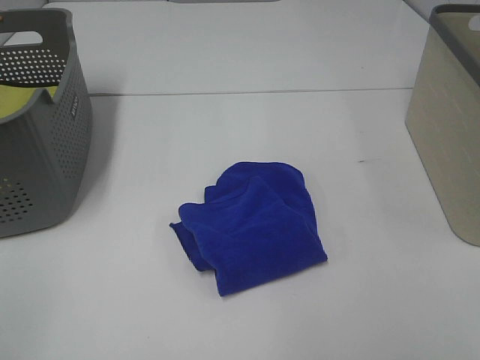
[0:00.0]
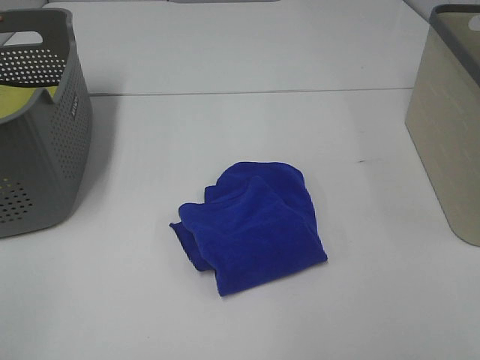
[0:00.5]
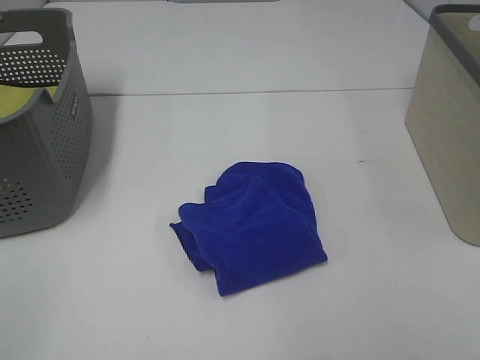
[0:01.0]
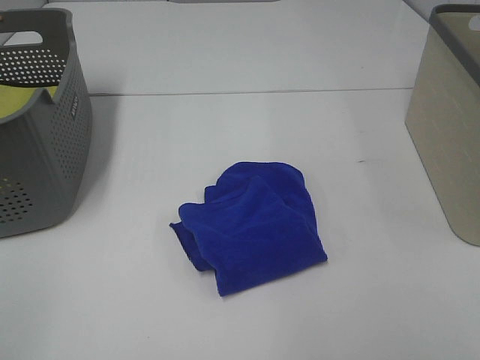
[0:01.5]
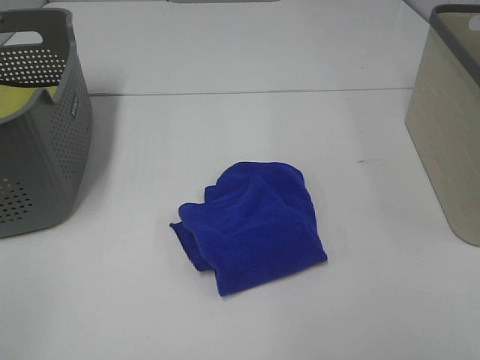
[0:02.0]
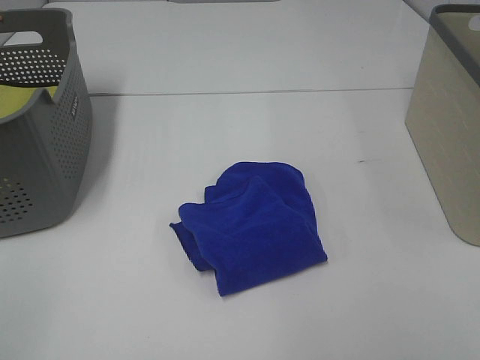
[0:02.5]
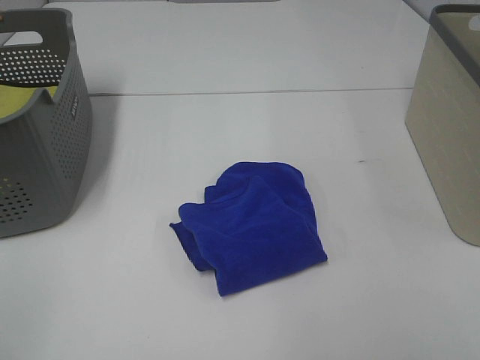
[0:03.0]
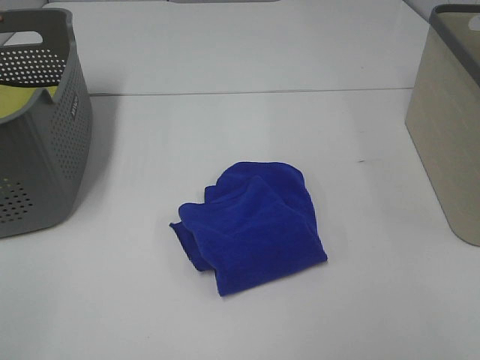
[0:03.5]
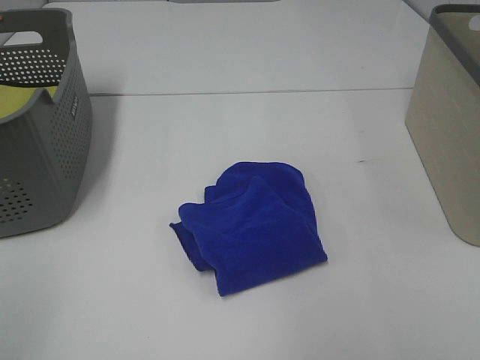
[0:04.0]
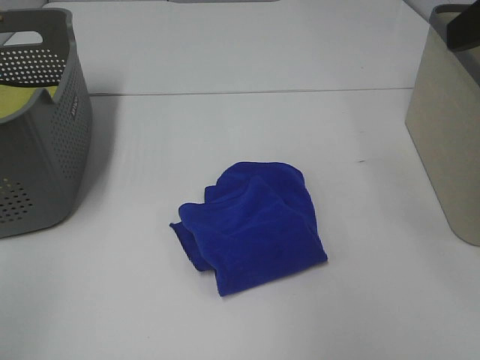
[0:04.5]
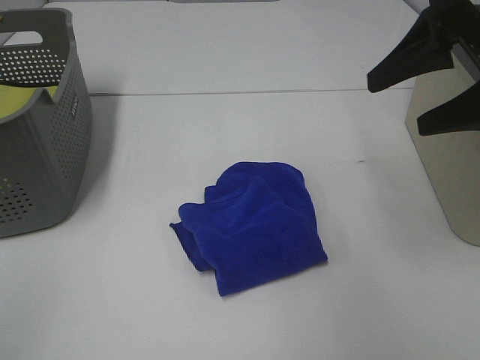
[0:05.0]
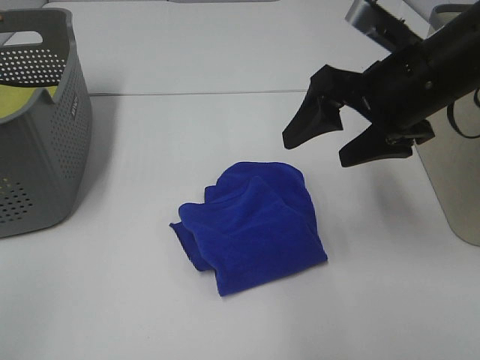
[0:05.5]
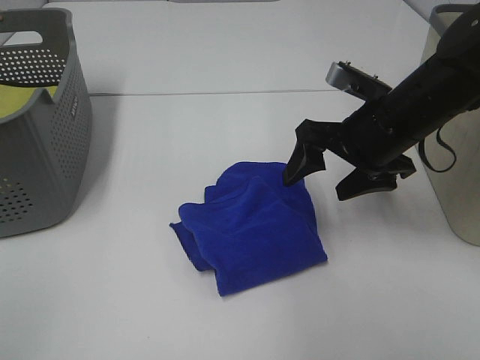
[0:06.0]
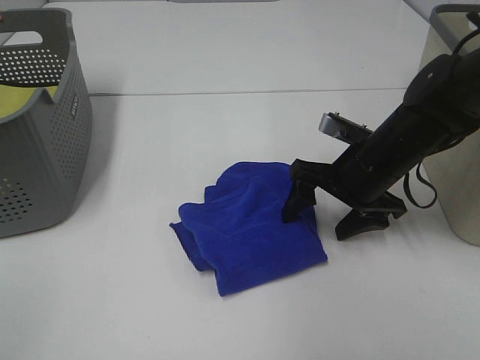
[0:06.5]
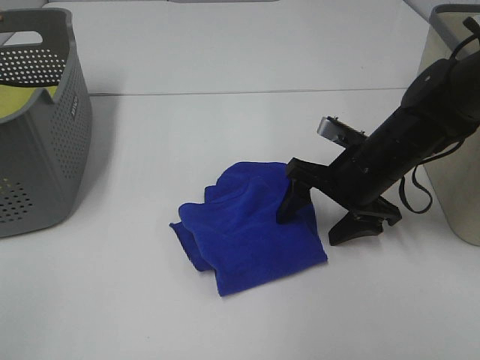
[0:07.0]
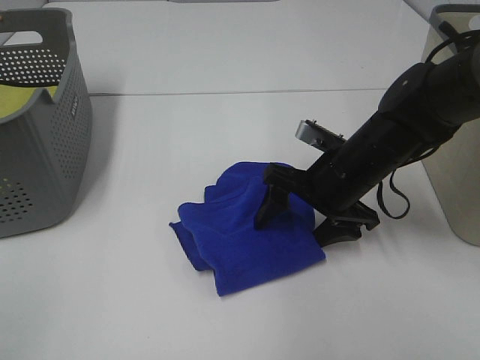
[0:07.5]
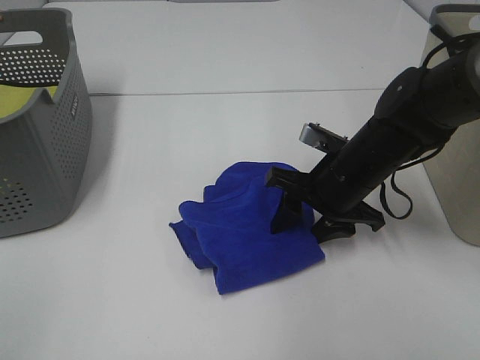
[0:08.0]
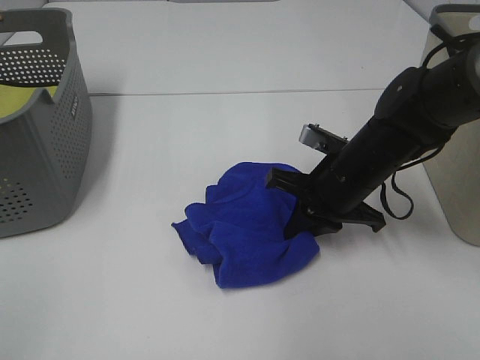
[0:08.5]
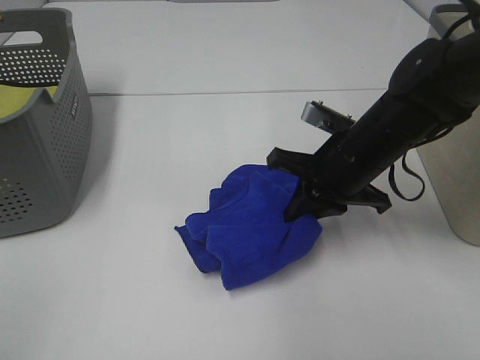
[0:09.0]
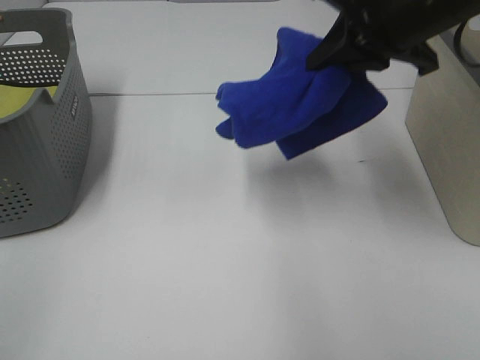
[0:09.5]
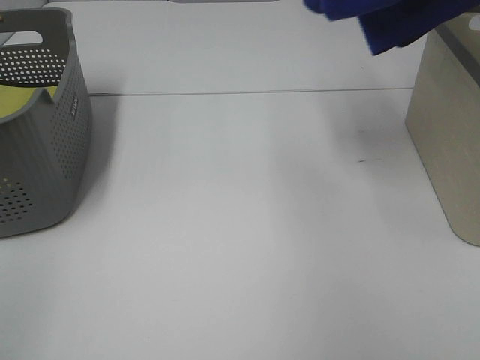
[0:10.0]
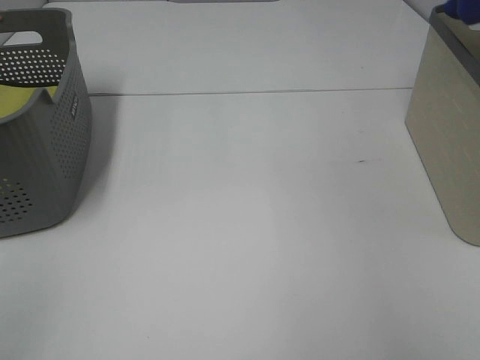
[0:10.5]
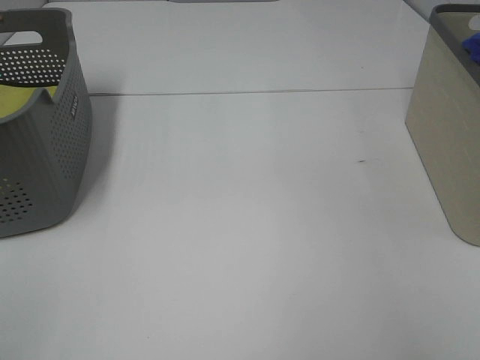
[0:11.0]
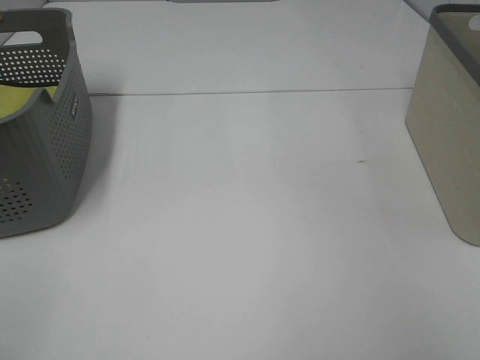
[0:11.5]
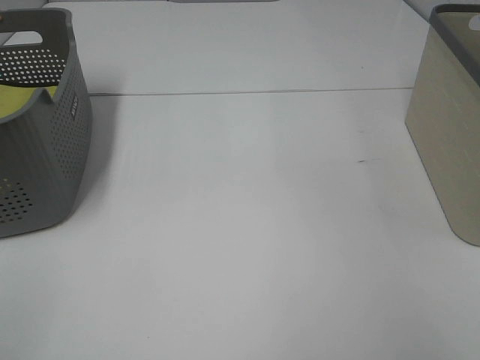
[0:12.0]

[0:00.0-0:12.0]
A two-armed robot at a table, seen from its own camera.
Step, 0:00.0 to 0:08.5: Right hand: grab the folded blue towel.
0:00.0 to 0:02.0: The two grippers keep their place.
0:04.0 to 0:06.0: The right gripper travels forward, downward and to the left by some 35 cm.
0:06.0 to 0:08.0: The right gripper shifts some 5 cm downward, and closes.
0:08.0 to 0:10.0: The right gripper moves upward and to the right, approximately 35 cm, and closes up.
0:10.0 to 0:12.0: The right gripper travels downward and to the right by some 20 cm.

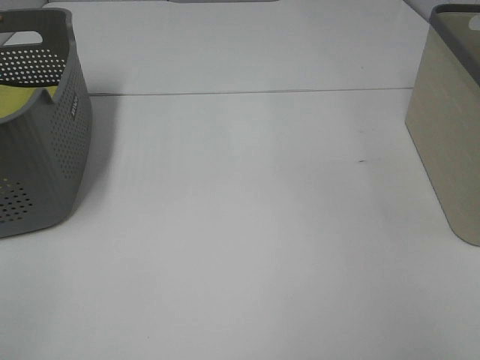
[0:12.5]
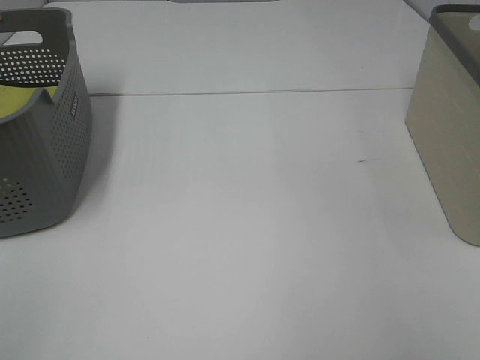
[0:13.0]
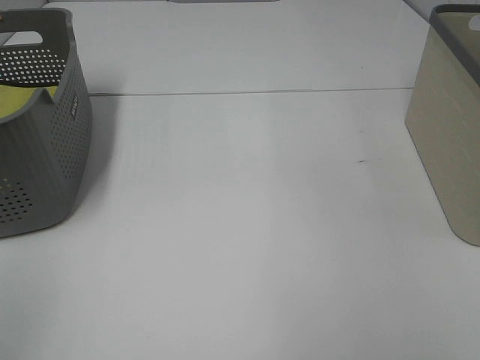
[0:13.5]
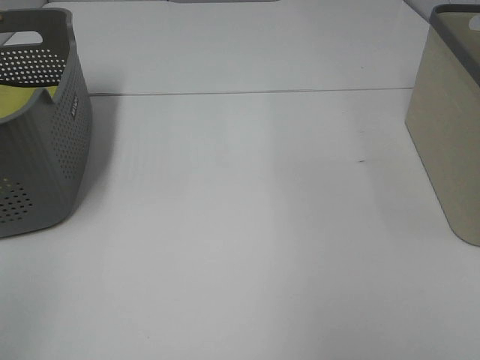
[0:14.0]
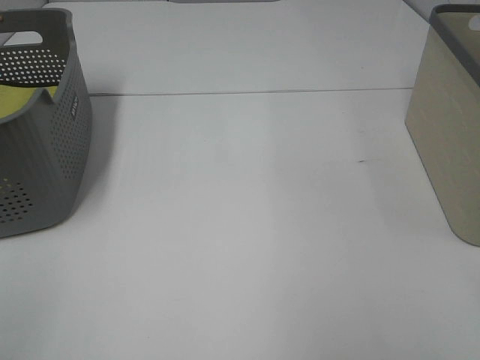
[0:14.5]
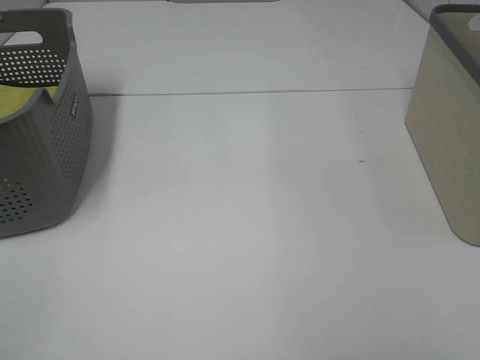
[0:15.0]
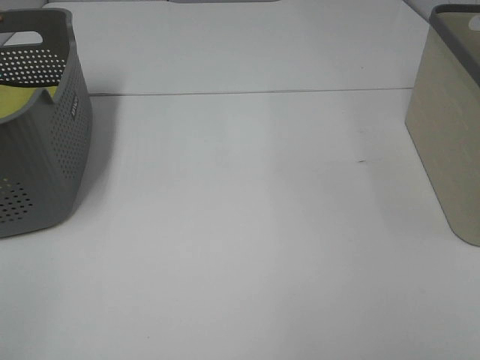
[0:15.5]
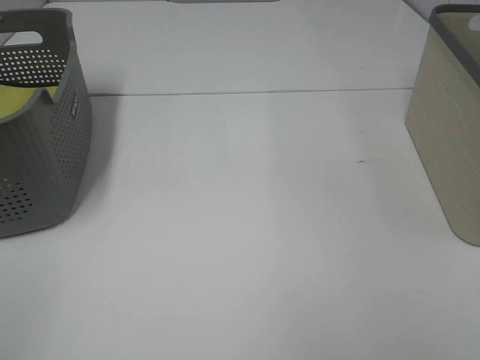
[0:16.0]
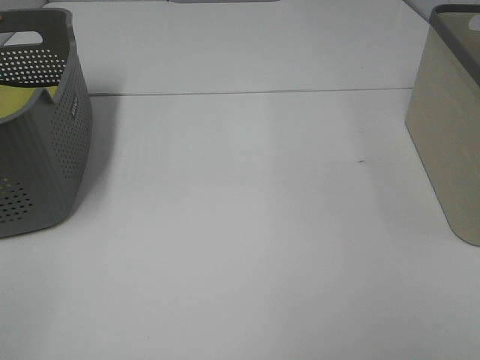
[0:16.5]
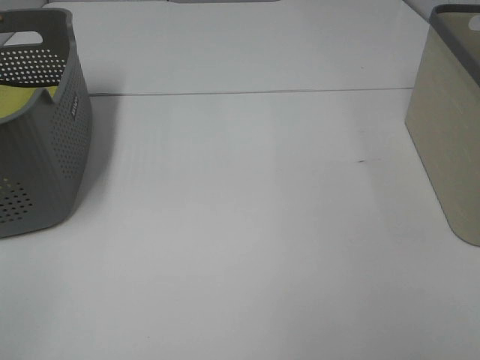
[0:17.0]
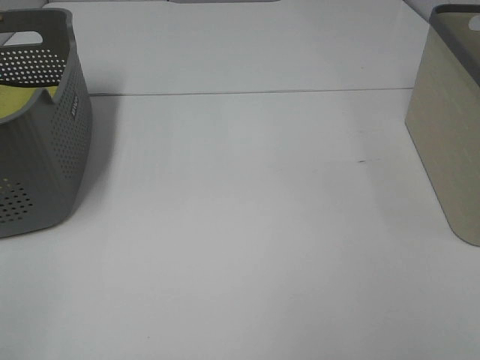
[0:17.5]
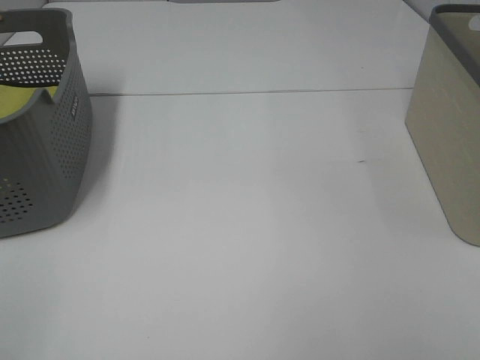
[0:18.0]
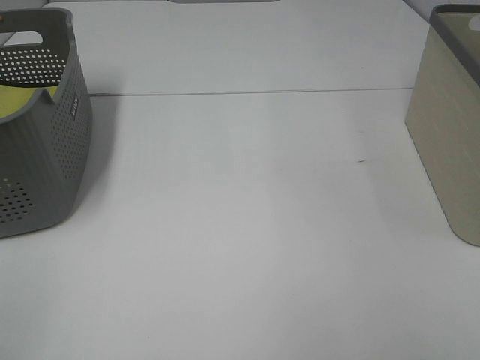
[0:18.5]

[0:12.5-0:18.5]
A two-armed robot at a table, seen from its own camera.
0:16.5 to 0:18.5: Neither gripper changes place.

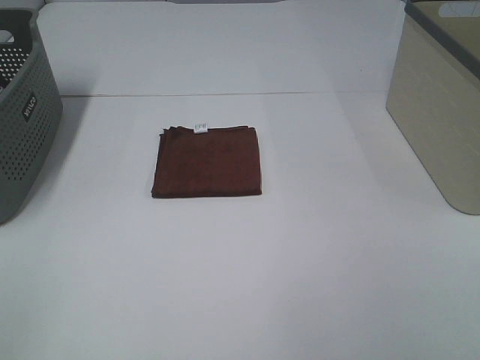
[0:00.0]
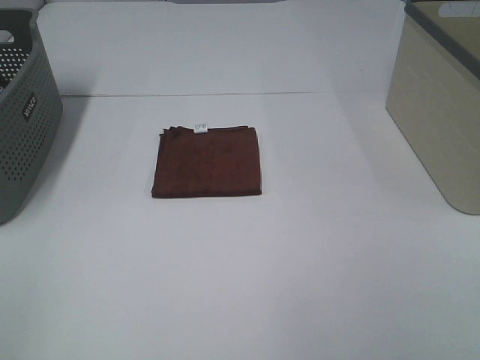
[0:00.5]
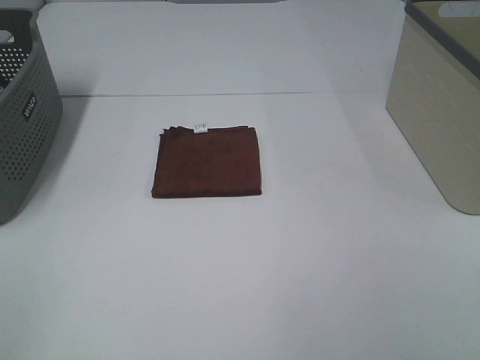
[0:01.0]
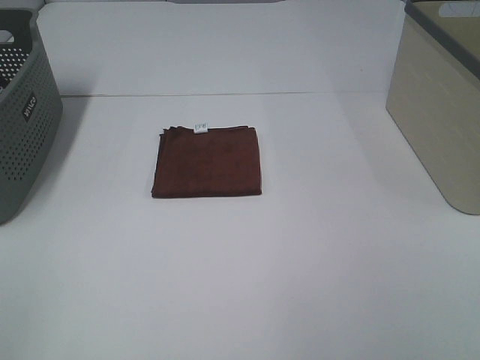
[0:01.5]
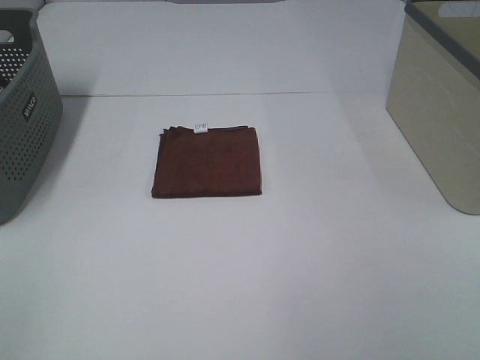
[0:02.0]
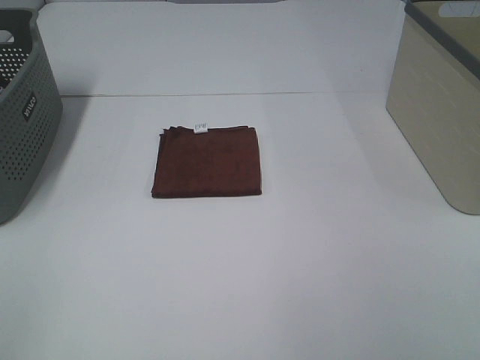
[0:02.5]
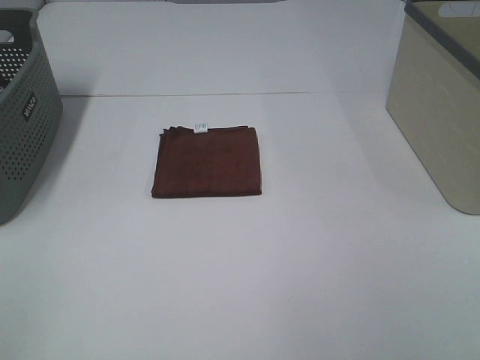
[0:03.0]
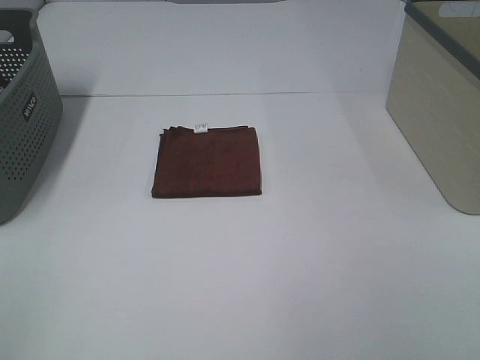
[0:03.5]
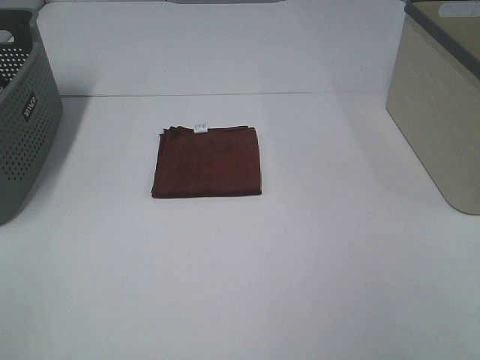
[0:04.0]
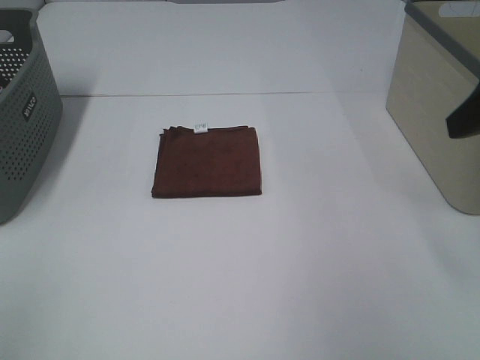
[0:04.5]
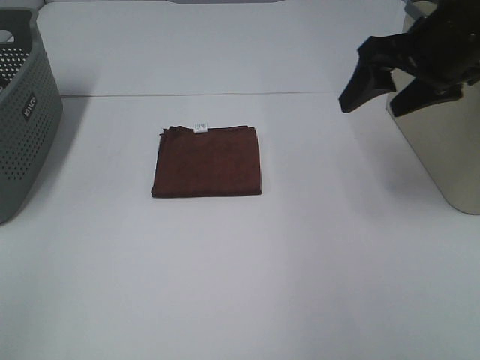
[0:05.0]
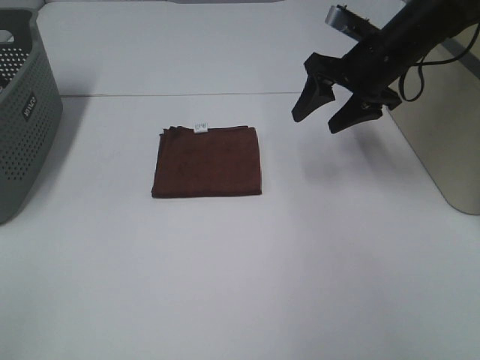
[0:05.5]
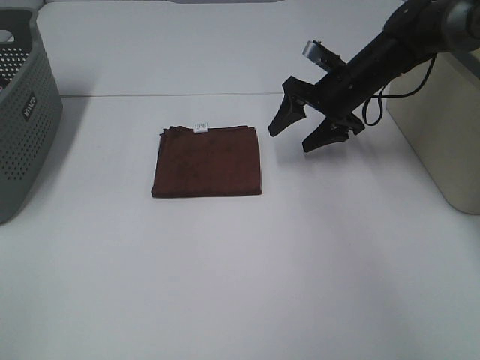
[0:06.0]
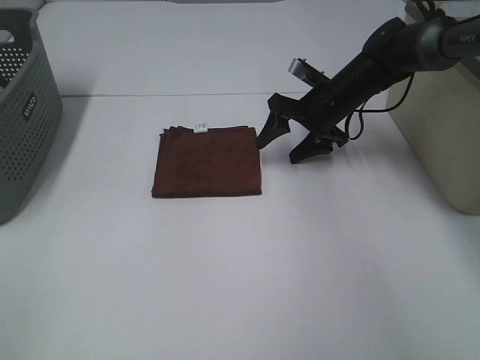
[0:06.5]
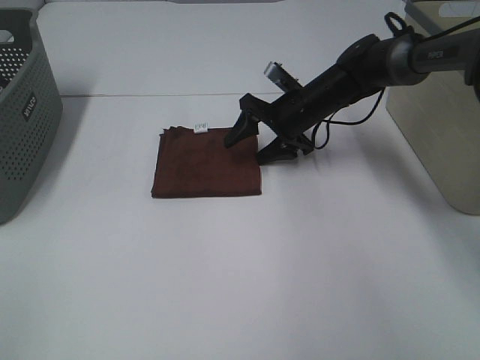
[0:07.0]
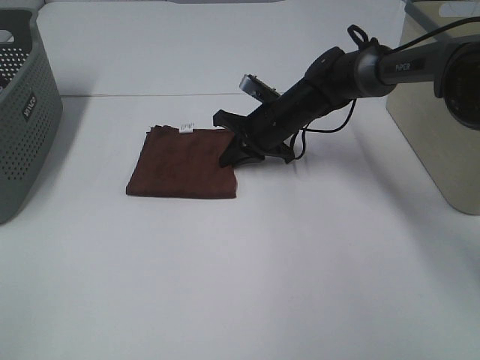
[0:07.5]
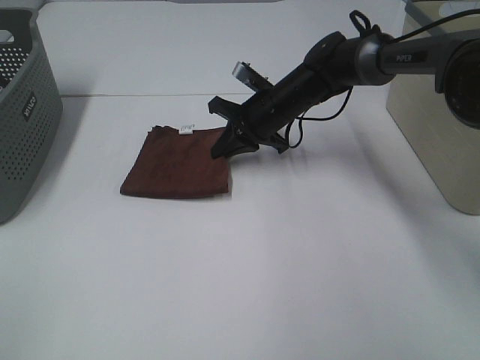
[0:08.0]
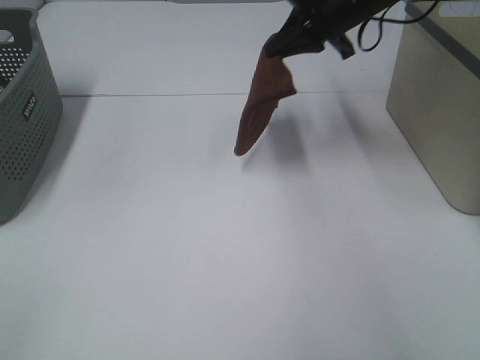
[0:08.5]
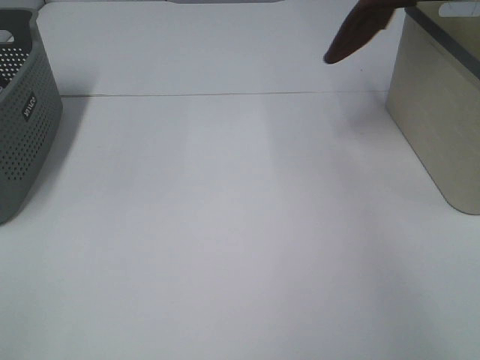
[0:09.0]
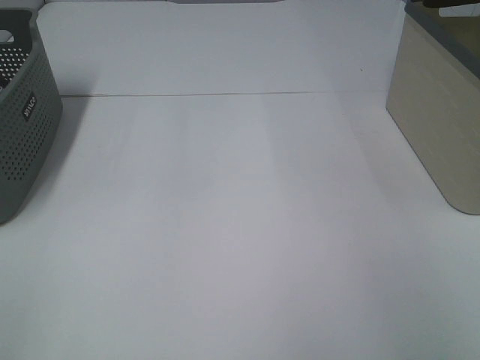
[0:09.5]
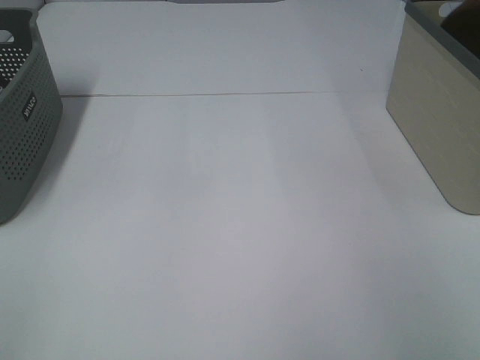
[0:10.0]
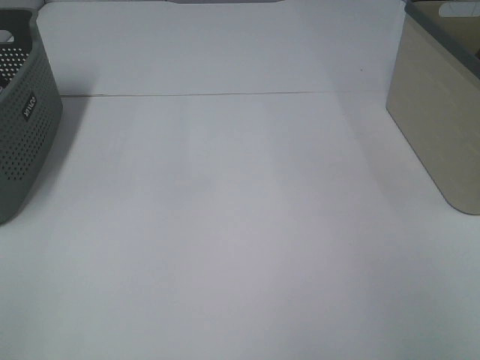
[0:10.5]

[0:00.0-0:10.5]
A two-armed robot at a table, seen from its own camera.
Step, 0:00.0 to 0:07.5: Right hand: grab the folded brown towel.
0:00.0 to 0:02.0: The two grippers keep their place.
0:04.0 to 0:06.5: The right gripper goes roughly 50 cm forward and downward.
0:06.5 to 0:08.5: The right gripper shifts approximately 15 cm upward, and closes its fingers.
0:08.5 to 0:10.5: The right gripper travels to the right by about 25 cm, and opens.
